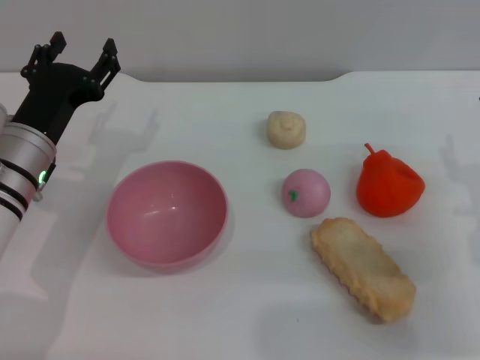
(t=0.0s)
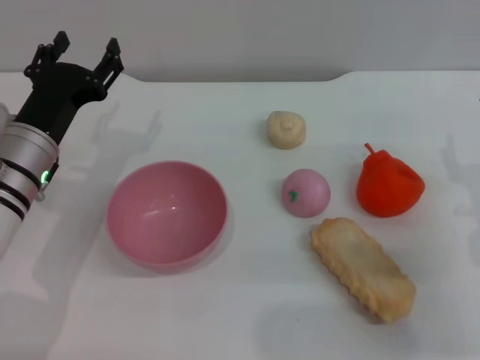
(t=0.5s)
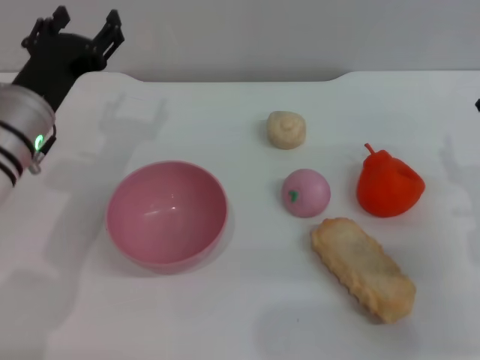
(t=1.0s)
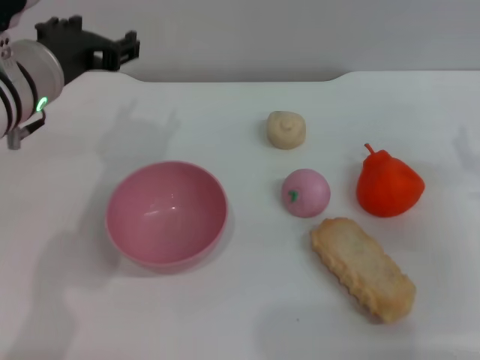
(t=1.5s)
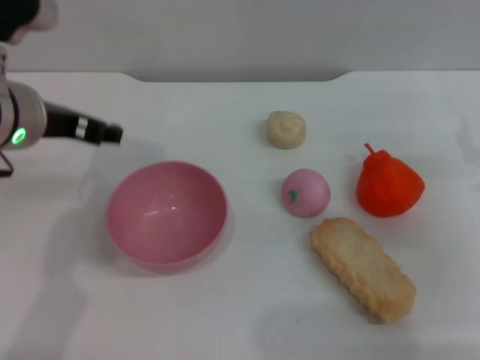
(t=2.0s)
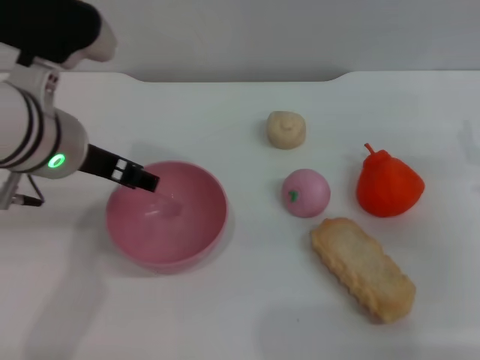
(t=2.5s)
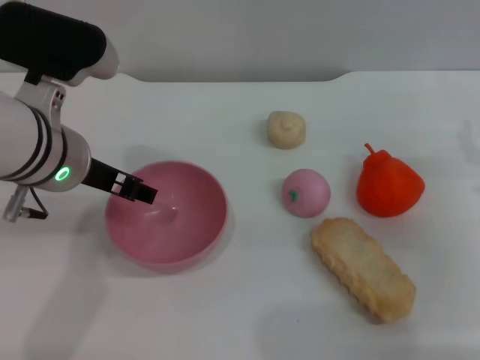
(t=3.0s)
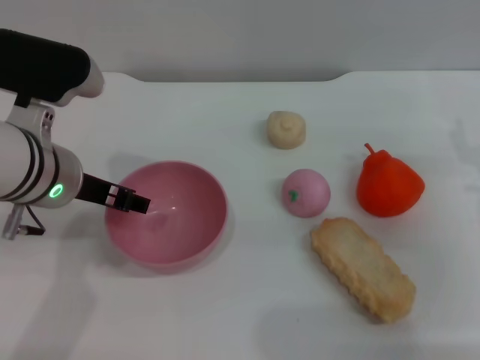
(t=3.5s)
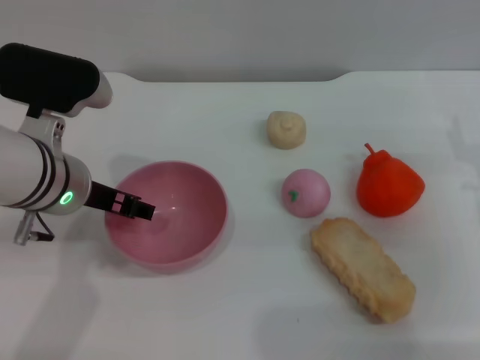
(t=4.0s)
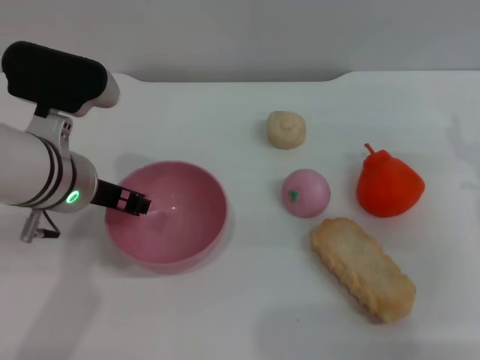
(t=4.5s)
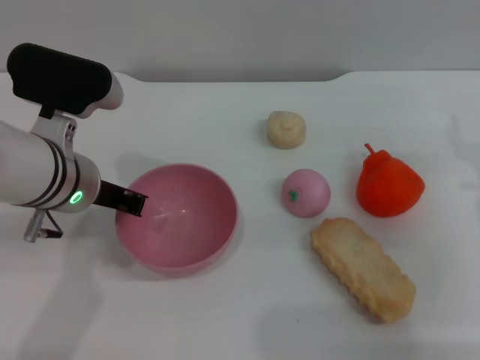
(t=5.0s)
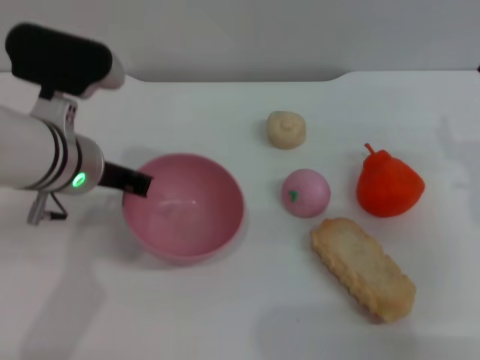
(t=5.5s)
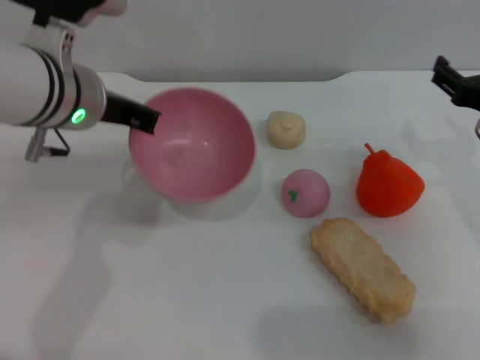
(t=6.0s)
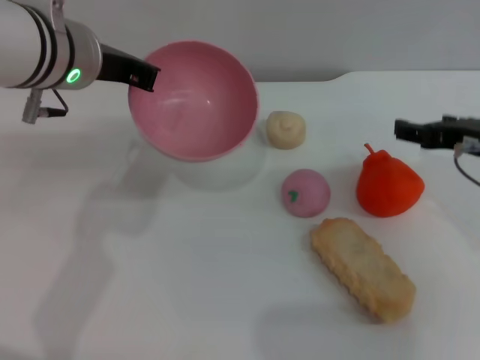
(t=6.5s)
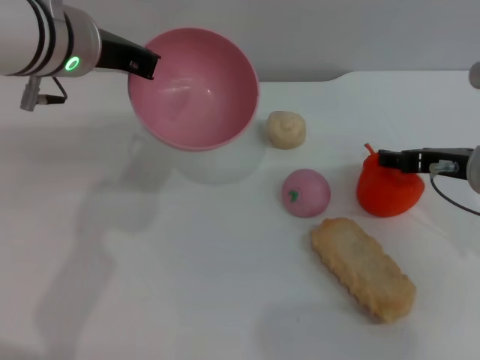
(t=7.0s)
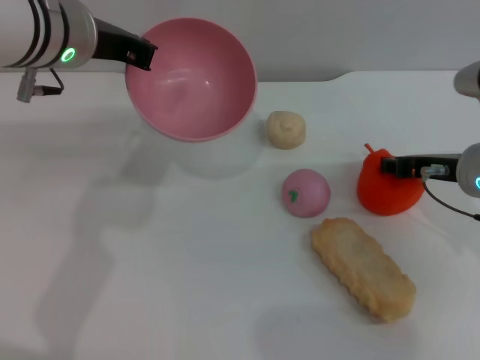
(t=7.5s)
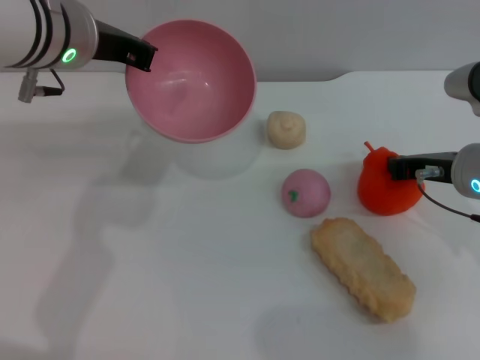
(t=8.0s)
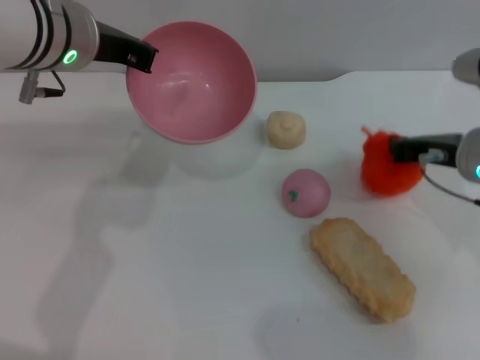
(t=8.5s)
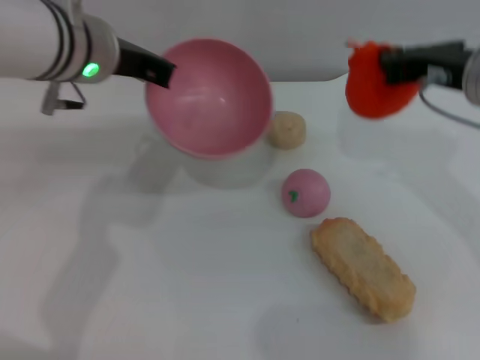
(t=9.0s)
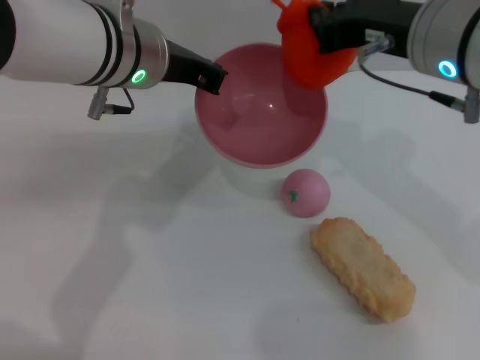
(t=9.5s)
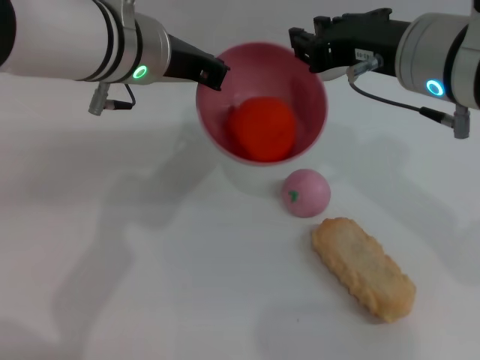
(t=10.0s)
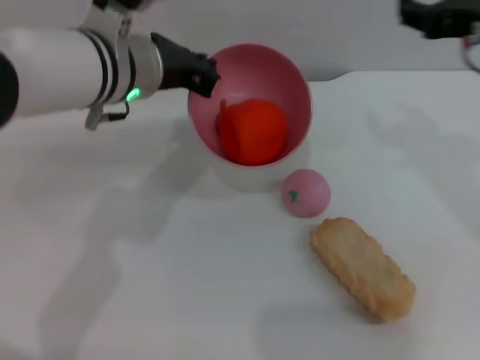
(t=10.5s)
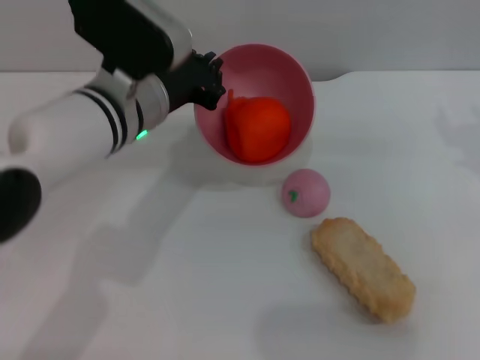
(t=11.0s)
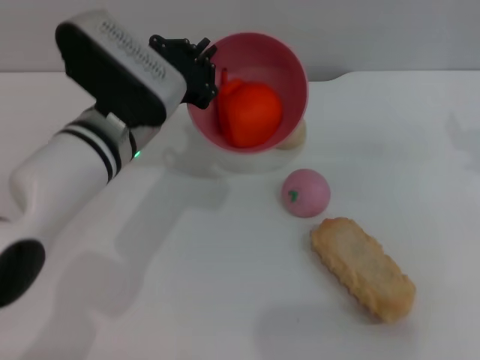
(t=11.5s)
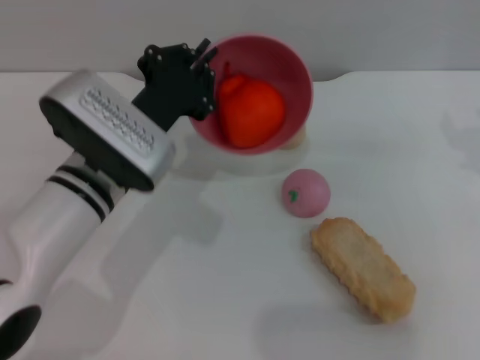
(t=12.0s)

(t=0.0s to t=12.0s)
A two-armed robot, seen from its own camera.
Task of the whole recording: put the orange into the pink bowl and pour it out repeatedly.
Step, t=0.0s - t=6.0s: Pick up the bowl with the left gripper.
Step, t=6.5s - t=8.5s: Pick up the orange with the right gripper.
Step, t=9.0s - t=10.0s: Place the orange into the bowl.
t=0.0s - t=2.0s: The left gripper goes some 15 cm upward.
t=2.0s - t=4.0s: The left gripper travels downward by approximately 5 cm.
t=4.0s - t=6.0s: The left gripper shifts about 5 cm upward, and closes its fingers.
t=6.0s - t=8.0s: The right gripper closes.
t=8.0s - t=10.0s: The right gripper heads upward and to the left, covering about 15 cm. Meanwhile the left gripper ends up some 5 cm from where it was.
t=10.0s - t=12.0s: The left gripper moves downward and backward, roughly 15 cm; the right gripper moves to the right, some 15 cm, and opens up.

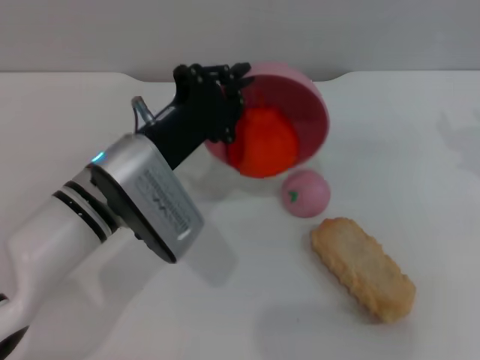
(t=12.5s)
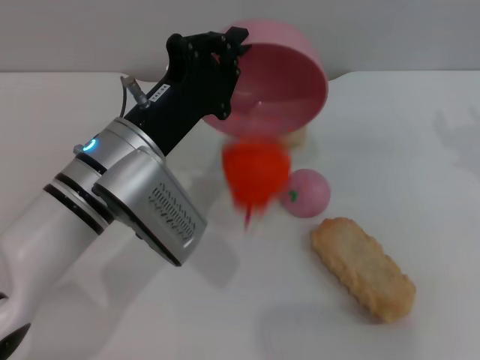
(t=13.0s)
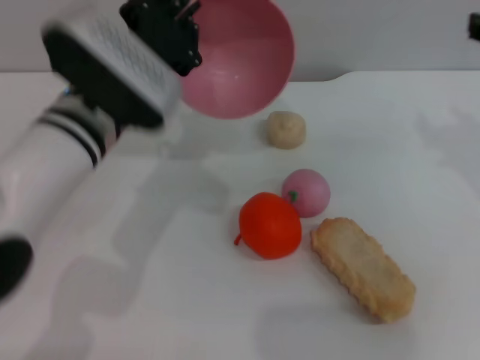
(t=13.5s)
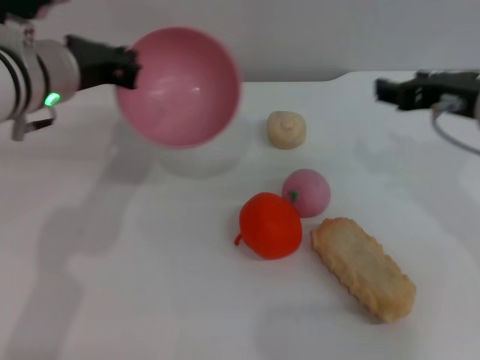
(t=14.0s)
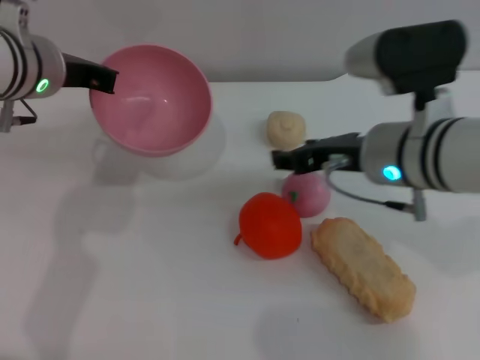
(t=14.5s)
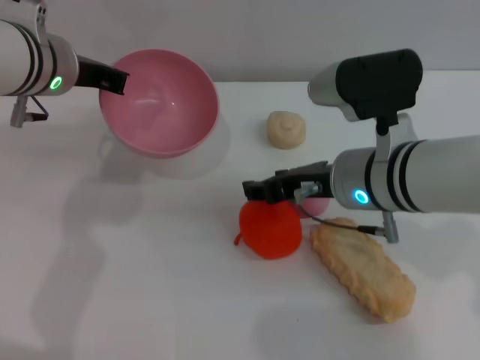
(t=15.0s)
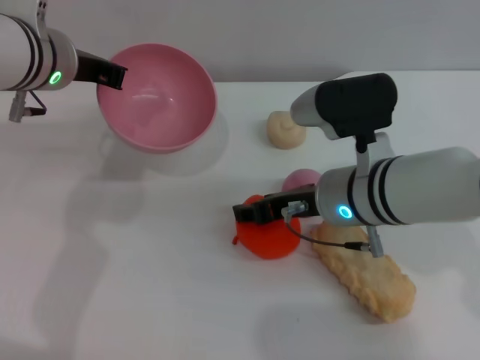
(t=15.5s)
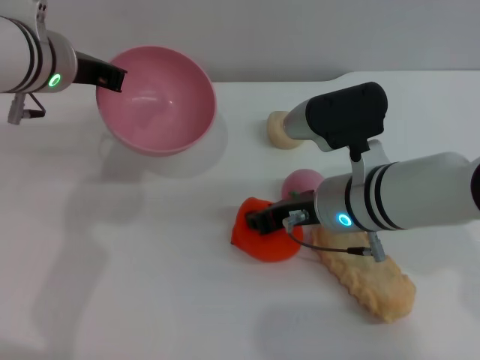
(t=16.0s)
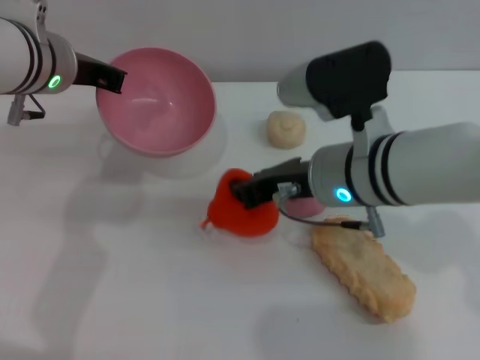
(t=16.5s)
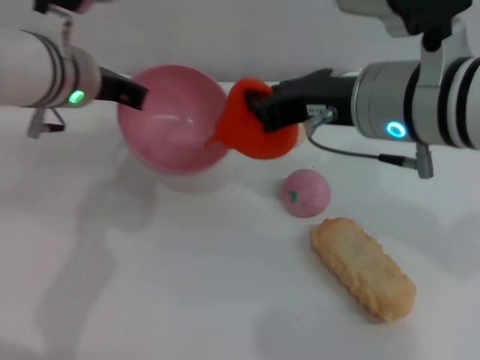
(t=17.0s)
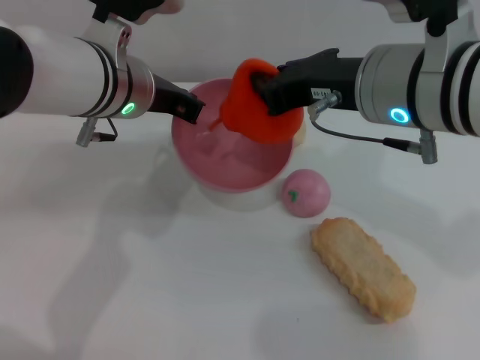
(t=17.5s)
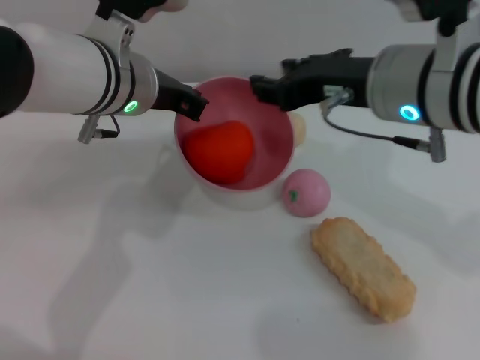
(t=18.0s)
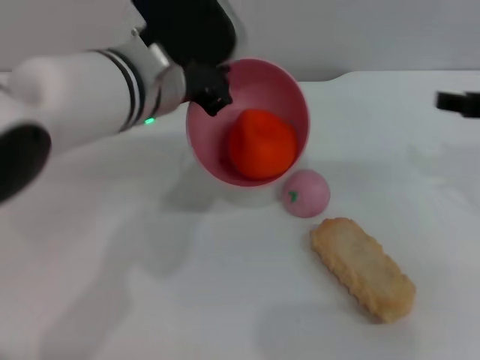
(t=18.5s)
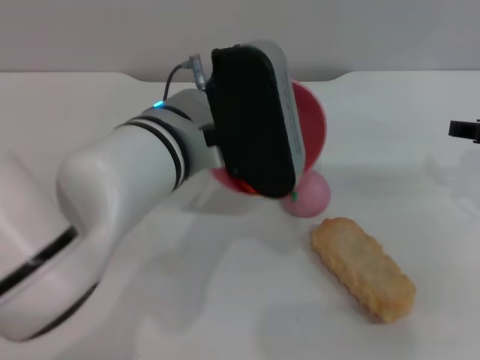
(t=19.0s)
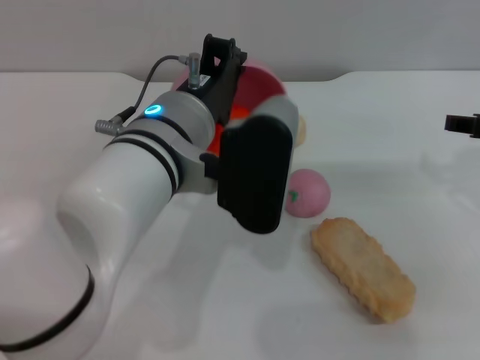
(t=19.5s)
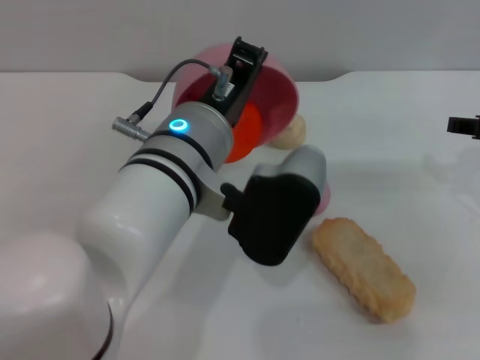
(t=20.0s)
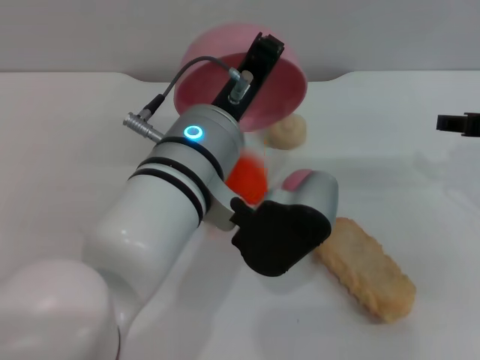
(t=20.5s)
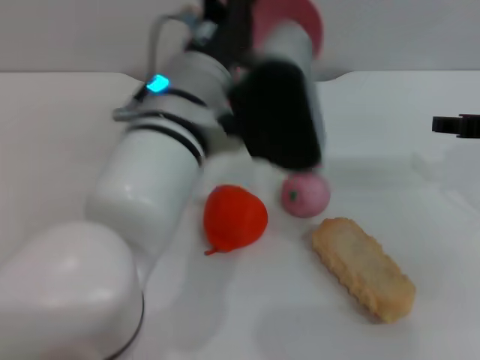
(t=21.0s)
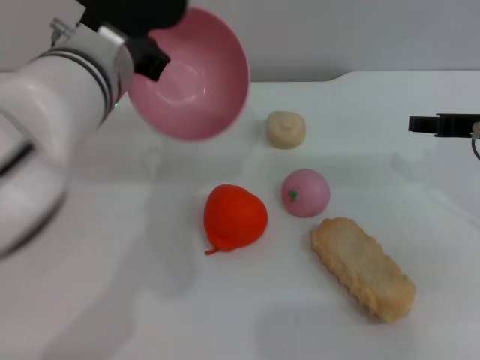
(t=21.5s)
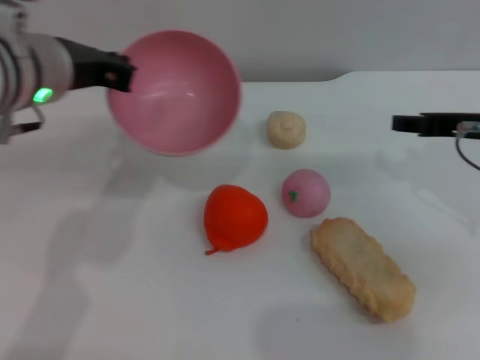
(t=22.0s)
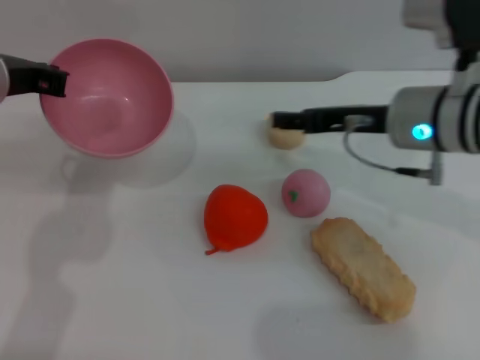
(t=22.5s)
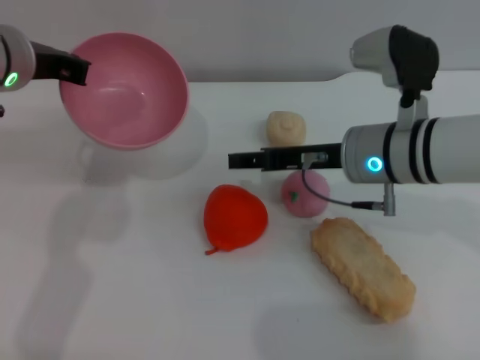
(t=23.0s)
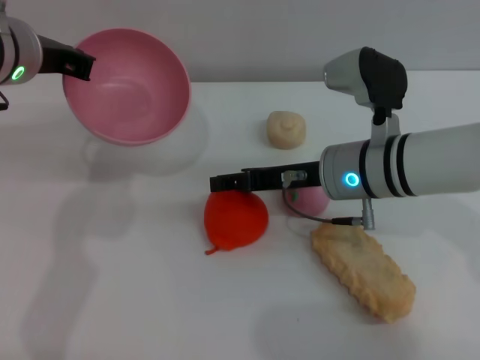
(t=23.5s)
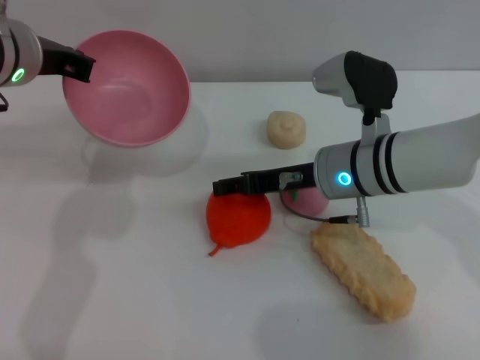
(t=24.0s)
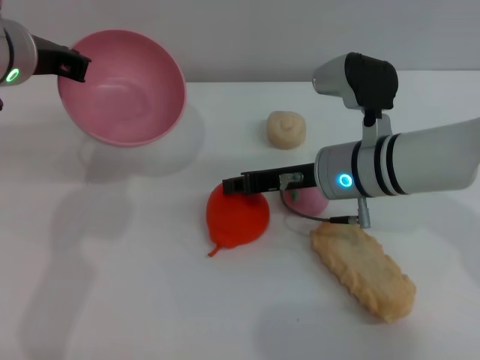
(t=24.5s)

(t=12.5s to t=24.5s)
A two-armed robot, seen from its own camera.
Task of the whole recording: put the orange into the pink bowl and pour it out repeatedly.
Step, t=13.5s - t=16.5s: Pick up the orange with the right gripper.
Step, t=17.0s - t=18.5s: Place the orange into the bowl.
Step, t=19.0s - t=21.0s: Pour the orange out of the bowl.
t=12.5s - t=14.5s: The right gripper shifts some 15 cm to the left and downward; the left gripper travels upward, forward and to the left by about 15 cm.
t=14.5s - t=16.5s: The right gripper closes its fingers.
t=16.5s - t=18.5s: The right gripper is displaced to the right by roughly 20 cm, and opens its fingers, while the left gripper travels to the right by some 10 cm.
t=18.5s - t=20.5s: The left gripper goes some 5 cm backward.
t=20.5s - t=22.5s: The right gripper heads to the left, covering some 10 cm, while the left gripper heads to the left and forward, covering approximately 20 cm.
t=22.5s - t=24.5s: The right gripper heads downward, covering roughly 5 cm.

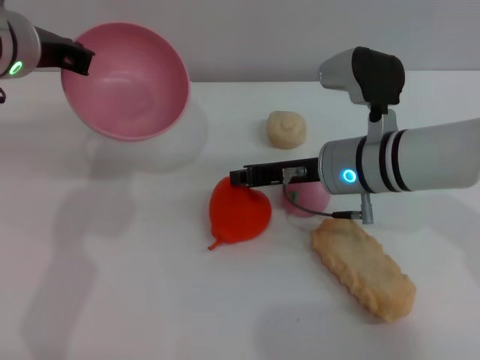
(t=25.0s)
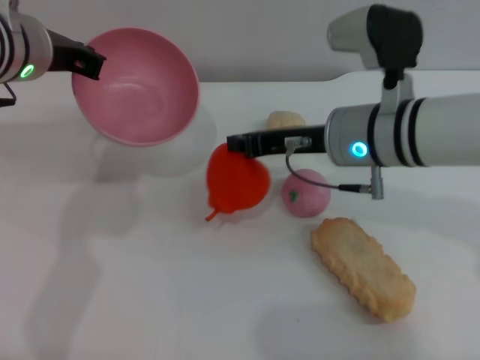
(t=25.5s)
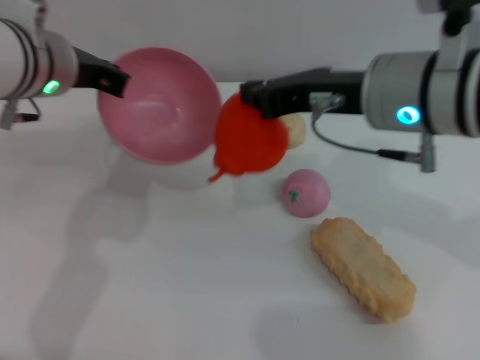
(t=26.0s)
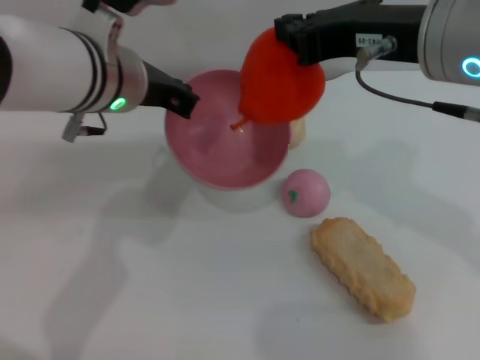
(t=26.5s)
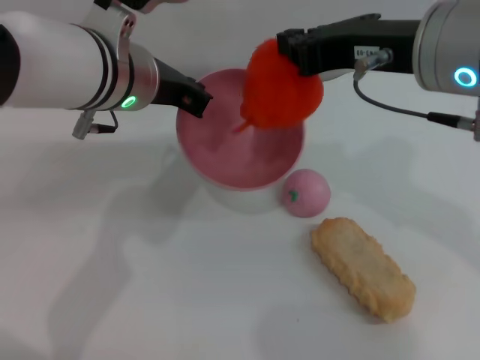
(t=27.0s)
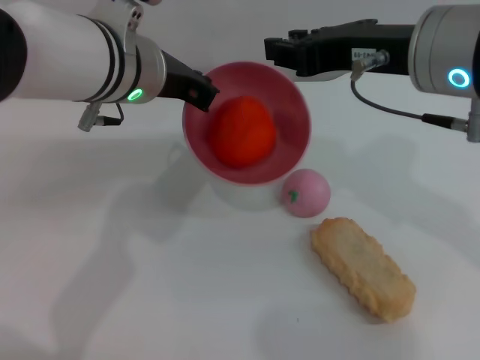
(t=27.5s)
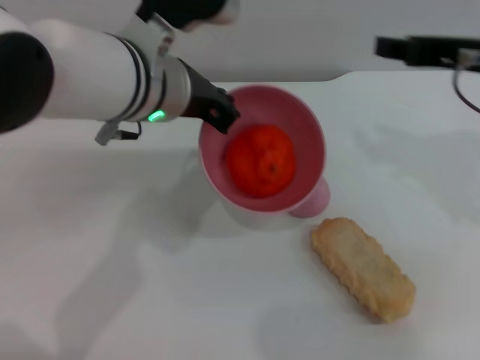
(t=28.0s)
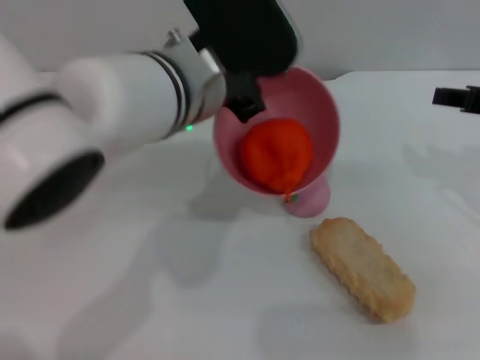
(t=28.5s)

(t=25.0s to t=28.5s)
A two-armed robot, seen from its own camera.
Task of the whole recording: put the orange into the pink bowl and pour it out repeatedly.
Step, t=26.0s - t=28.0s: Place the orange into the bowl.
t=25.0s - t=27.0s: The right gripper heads upward, covering some 20 cm; the left gripper heads to the right, covering approximately 10 cm.
t=27.0s - t=28.5s: The left gripper is displaced to the right by approximately 5 cm. Meanwhile the right gripper is displaced to the right and downward by some 15 cm, and opens up.
